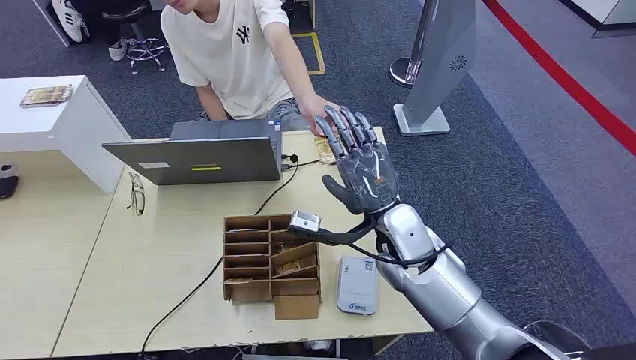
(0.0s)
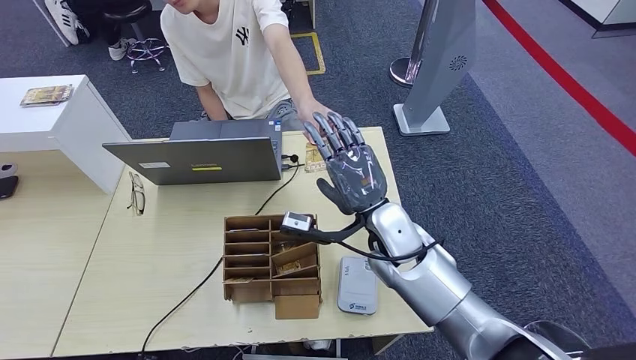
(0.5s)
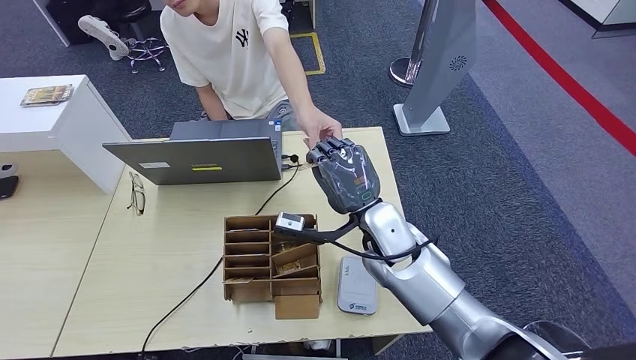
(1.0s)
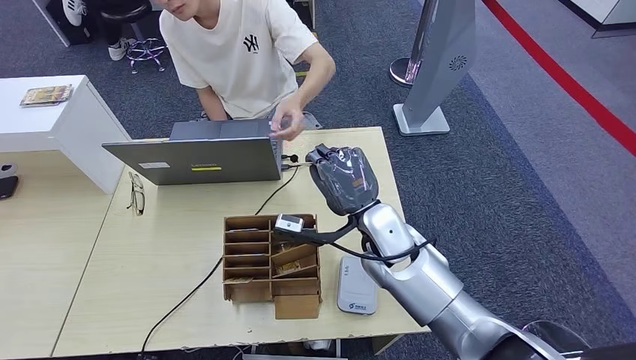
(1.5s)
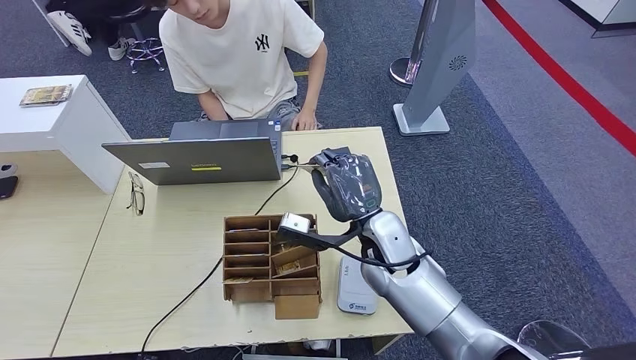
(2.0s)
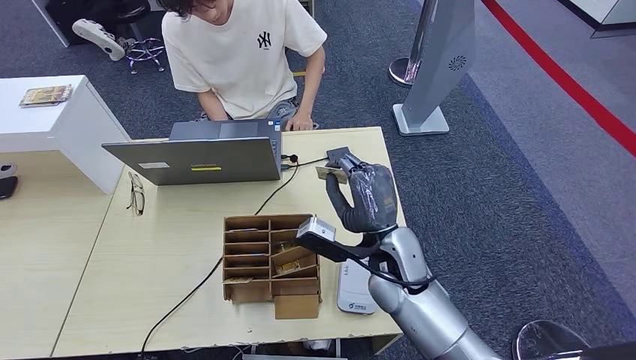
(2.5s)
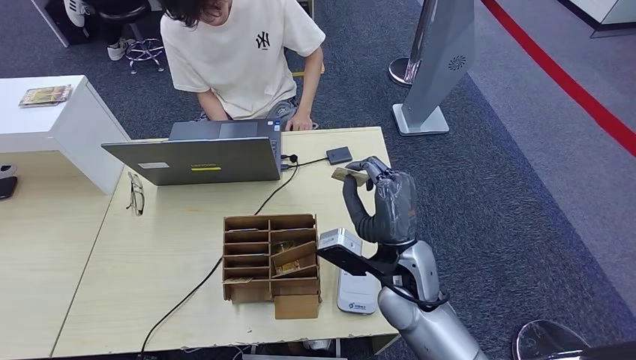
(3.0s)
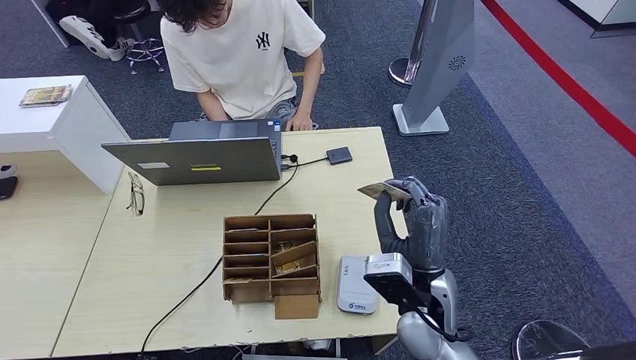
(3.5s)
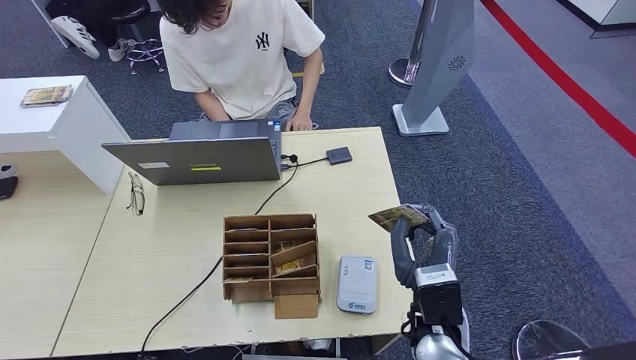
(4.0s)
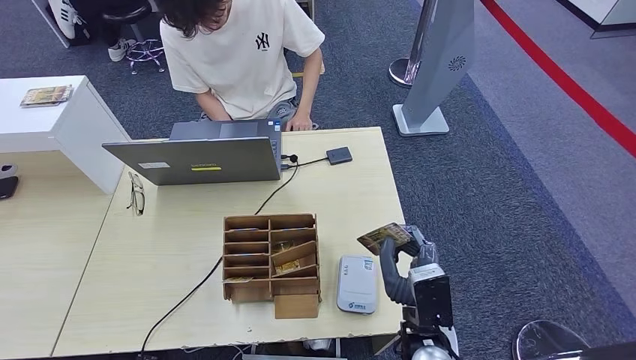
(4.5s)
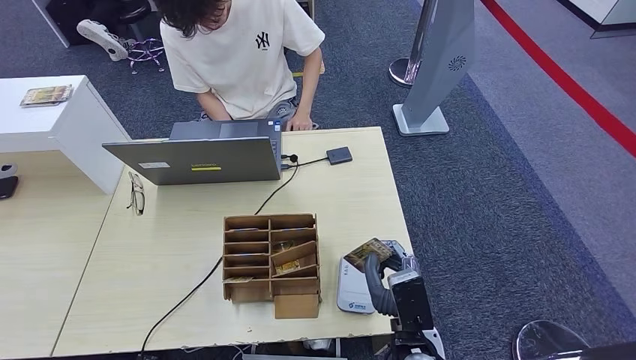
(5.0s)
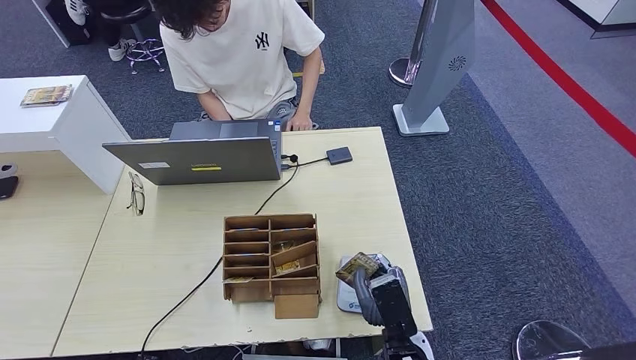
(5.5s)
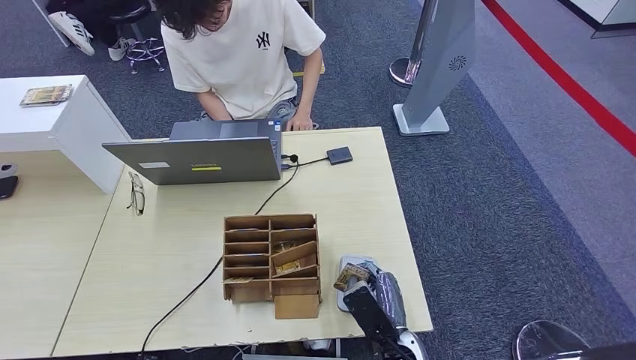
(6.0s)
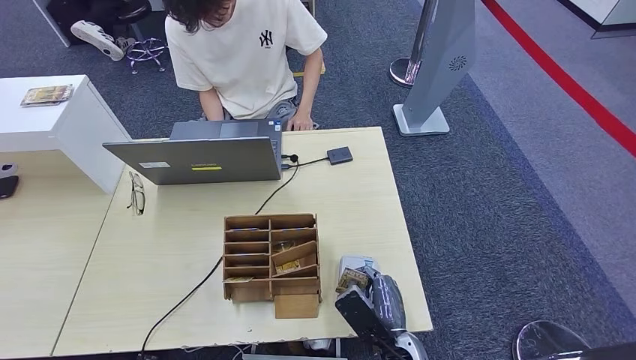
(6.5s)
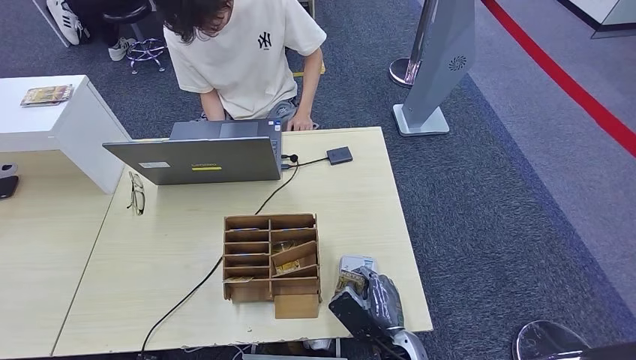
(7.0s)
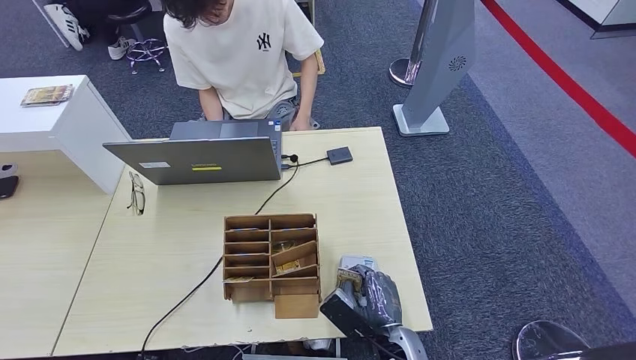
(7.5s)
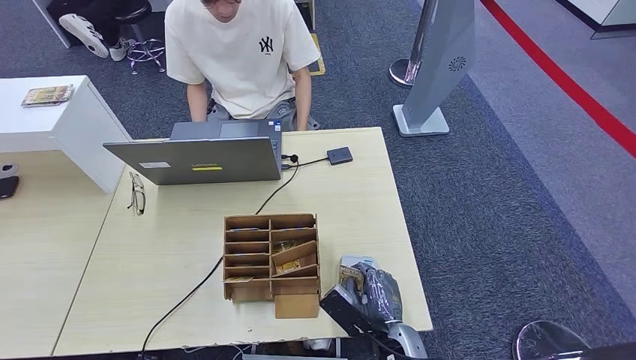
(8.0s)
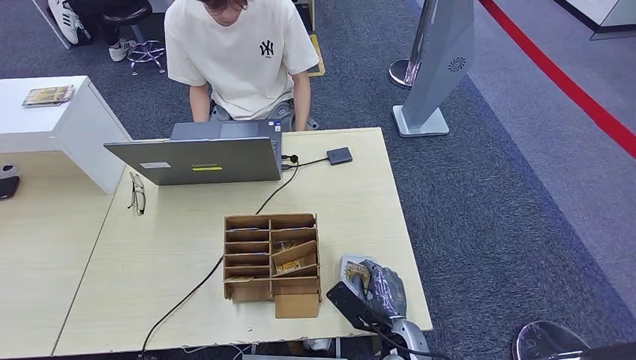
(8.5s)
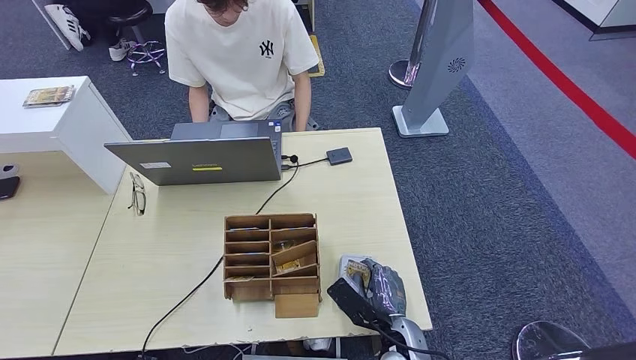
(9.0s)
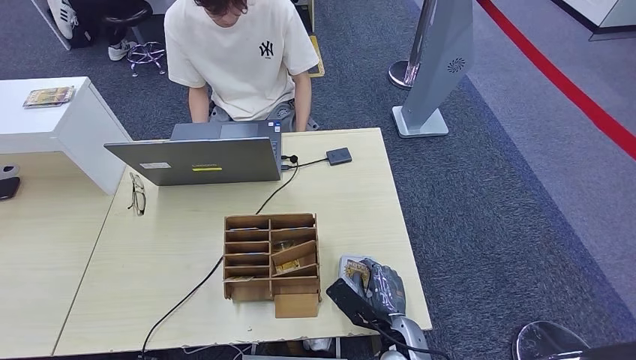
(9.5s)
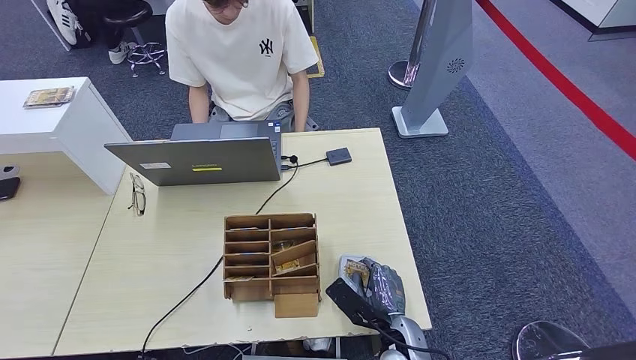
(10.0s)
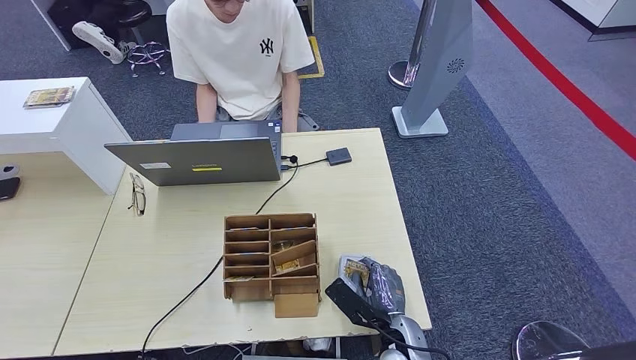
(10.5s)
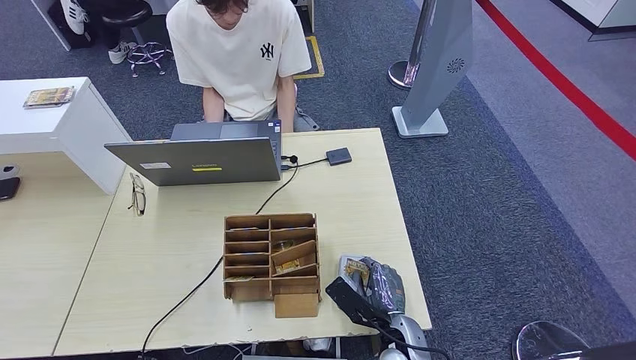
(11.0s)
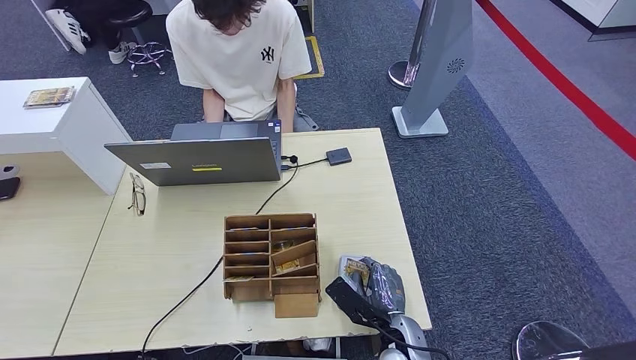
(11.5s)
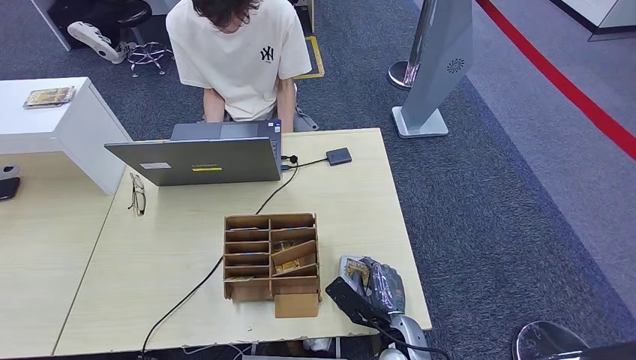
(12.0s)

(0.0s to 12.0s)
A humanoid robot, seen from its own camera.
Step, 0.0s - 3.0s: Take the ID card from the person's hand.
2.0s - 4.0s: The right hand moves backward and to the right, about 15 cm.
4.0s - 6.0s: The right hand goes some 10 cm downward.
8.0s - 10.0s: The hands make only small movements.
10.0s - 12.0s: Both hands stay put.

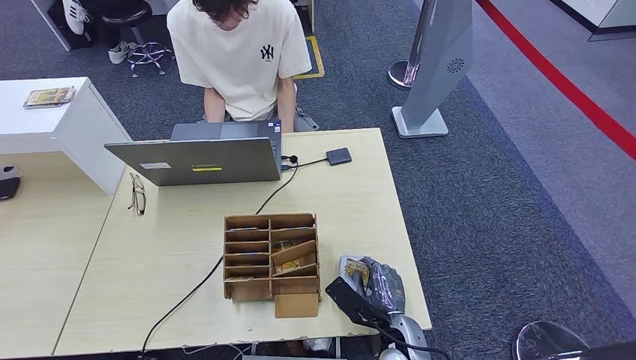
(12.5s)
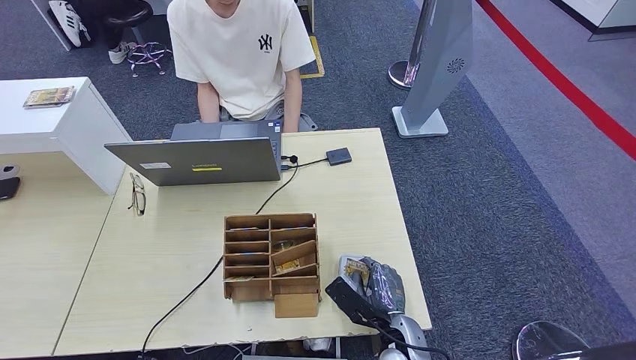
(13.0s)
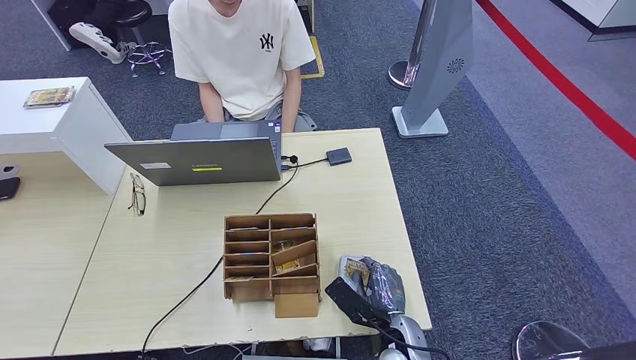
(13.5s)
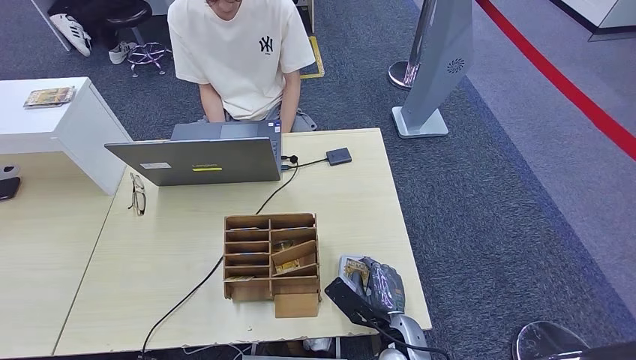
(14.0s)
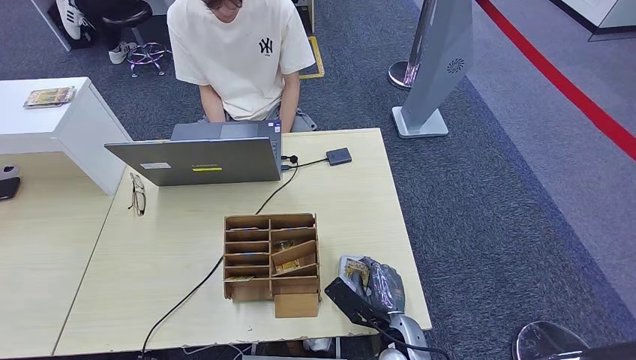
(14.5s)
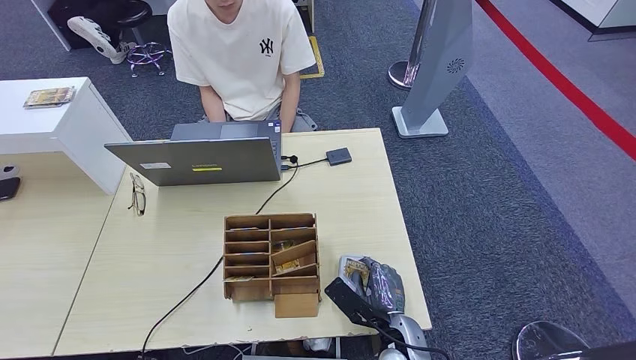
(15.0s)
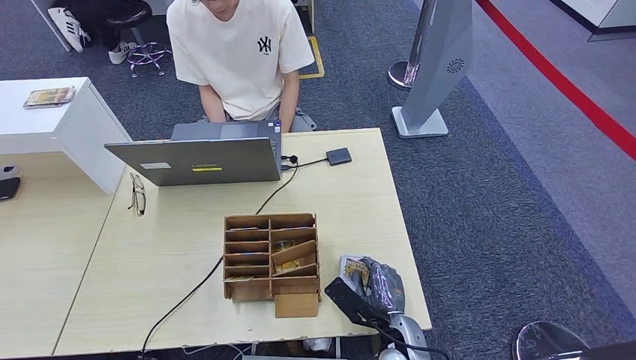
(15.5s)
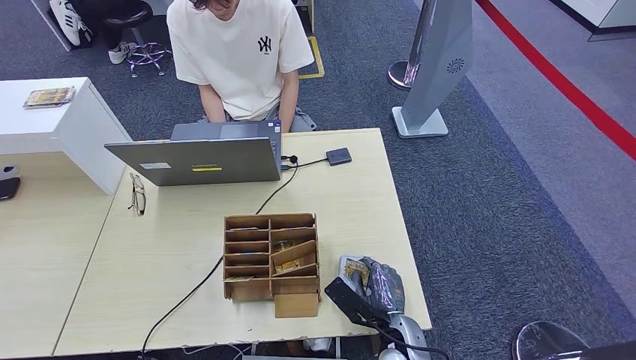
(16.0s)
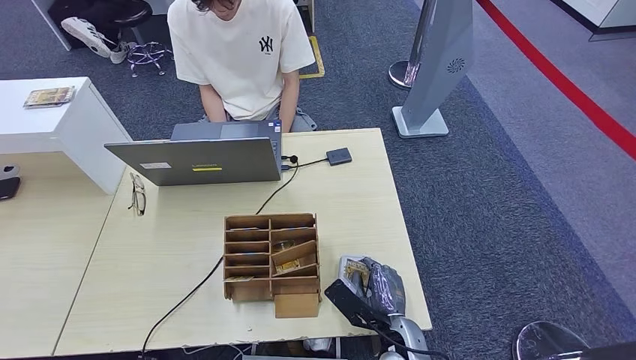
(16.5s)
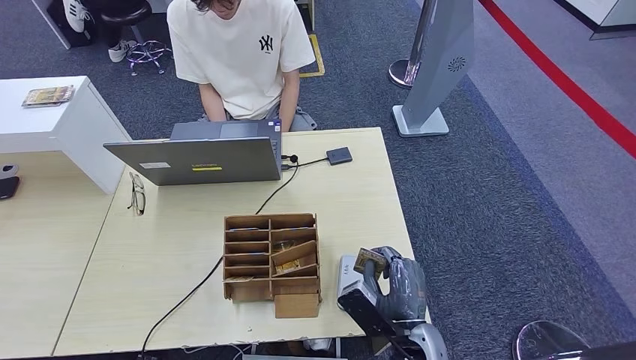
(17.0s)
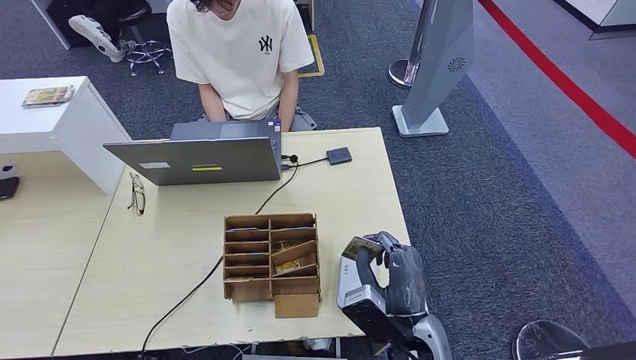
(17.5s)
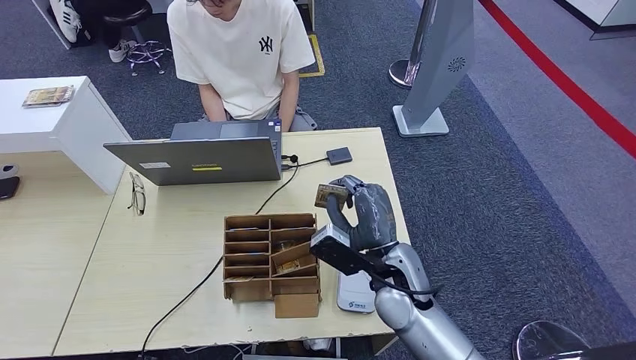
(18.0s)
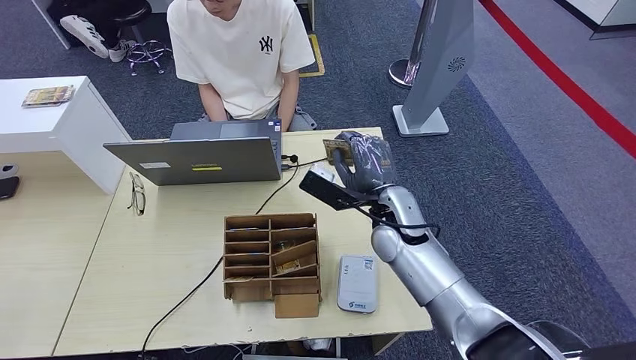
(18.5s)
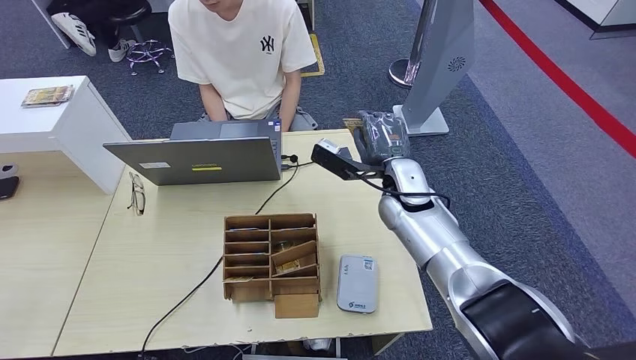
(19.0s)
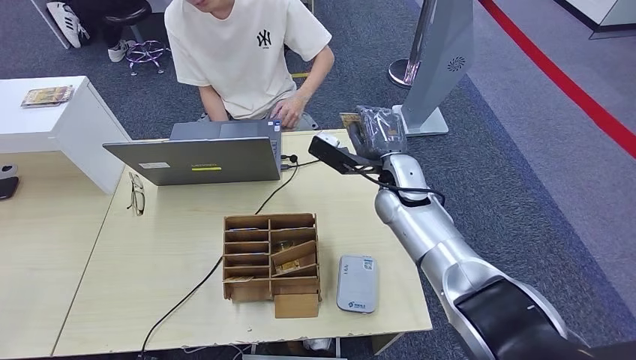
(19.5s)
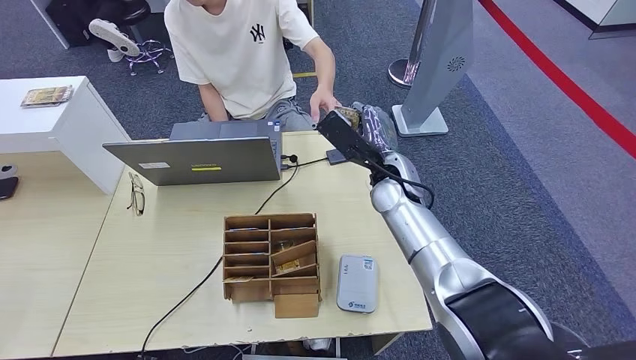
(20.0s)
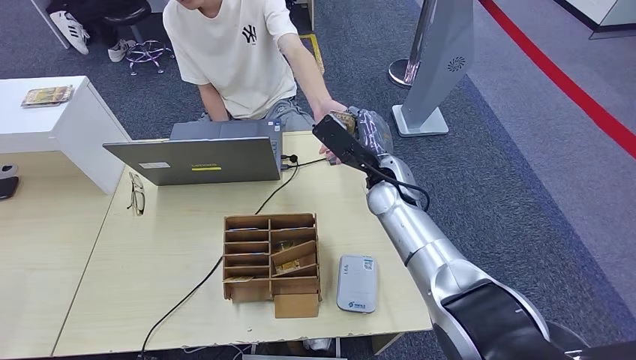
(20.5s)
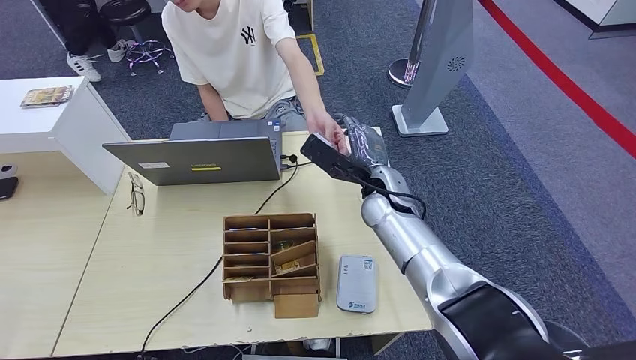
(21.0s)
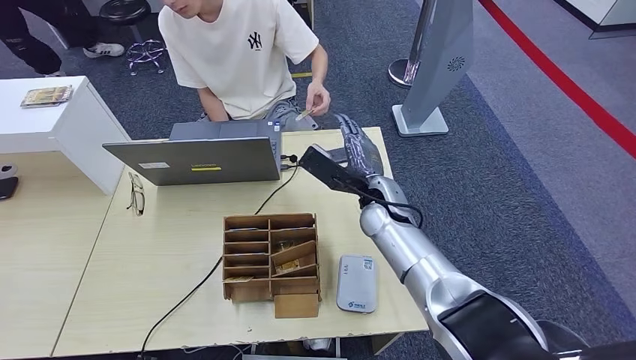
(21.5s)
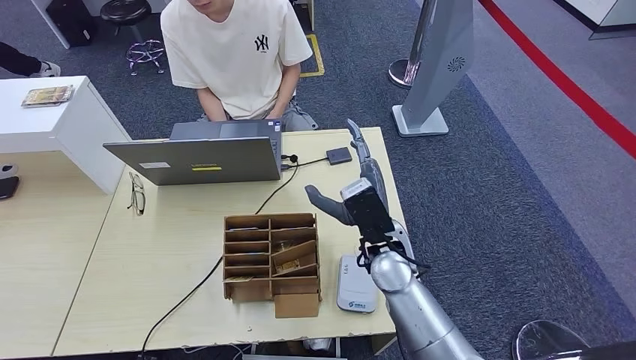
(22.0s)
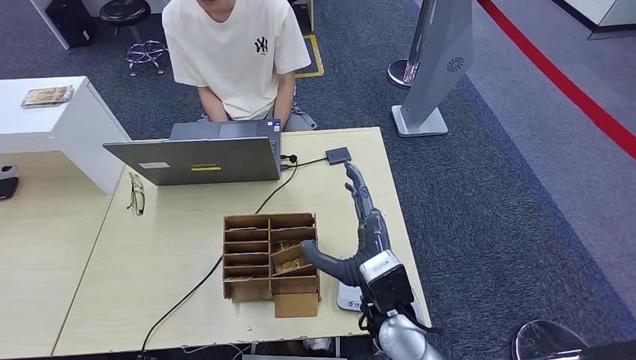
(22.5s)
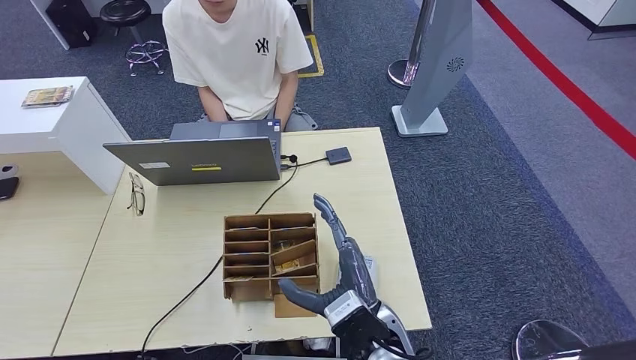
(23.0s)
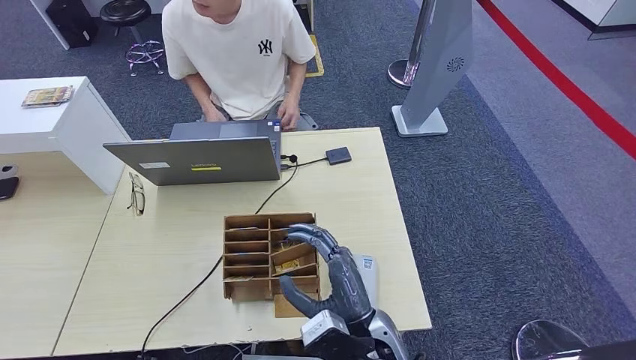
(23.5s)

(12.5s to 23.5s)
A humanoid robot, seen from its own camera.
Step, 12.5s - 17.5s: Place the ID card on the card reader.
Step, 18.0s - 22.0s: Hand the ID card to the person.
12.5s - 16.0s: Both hands stay about where they are.
16.0s - 18.0s: The right hand shifts approximately 15 cm upward and forward.
18.0s - 20.0s: The right hand heads forward, covering some 15 cm.
20.0s - 21.5s: The hands move only a little.
21.5s - 23.5s: The right hand is displaced backward by some 20 cm.
